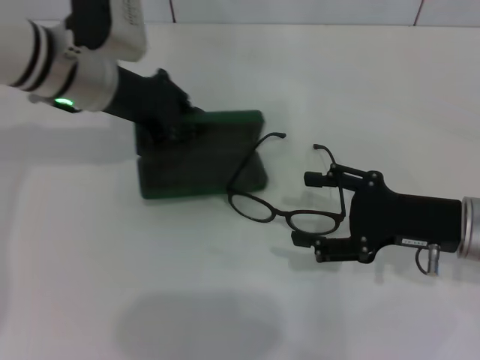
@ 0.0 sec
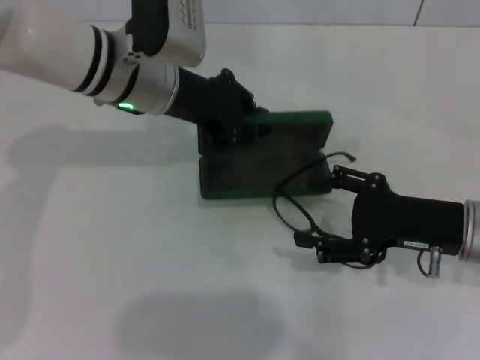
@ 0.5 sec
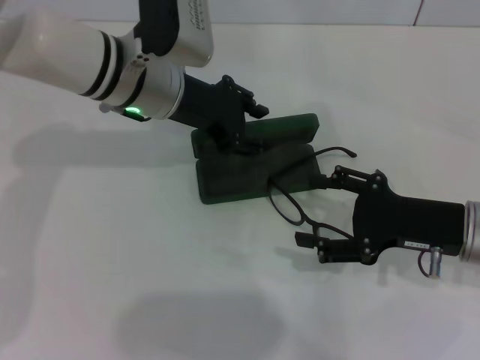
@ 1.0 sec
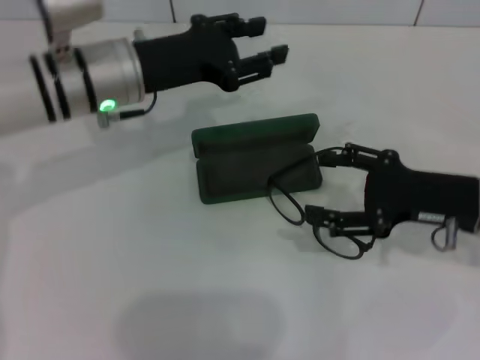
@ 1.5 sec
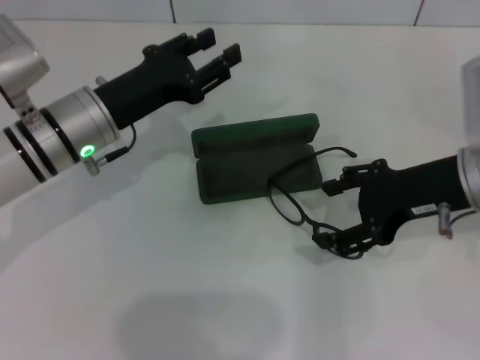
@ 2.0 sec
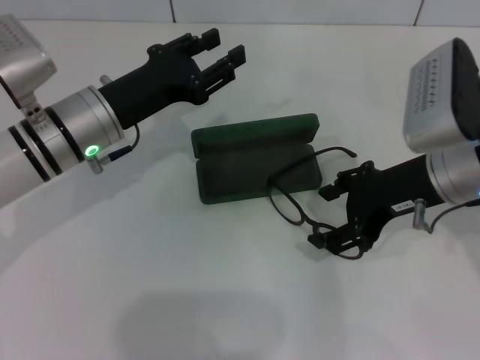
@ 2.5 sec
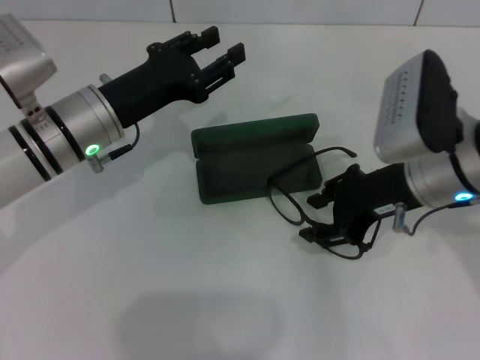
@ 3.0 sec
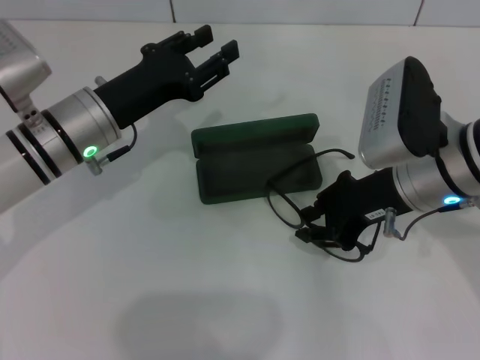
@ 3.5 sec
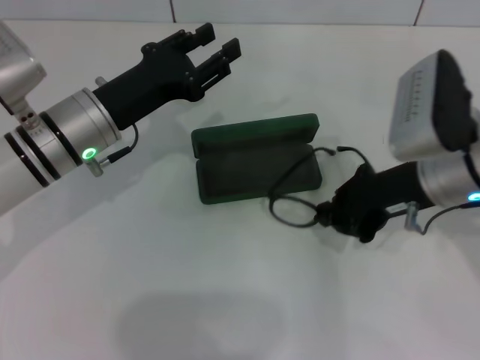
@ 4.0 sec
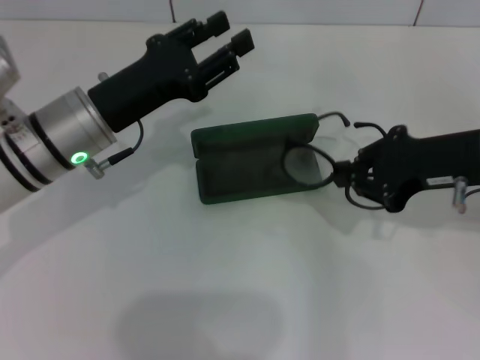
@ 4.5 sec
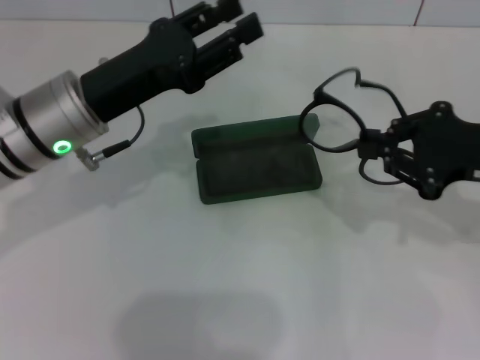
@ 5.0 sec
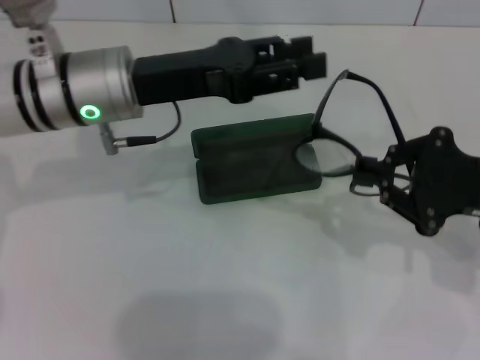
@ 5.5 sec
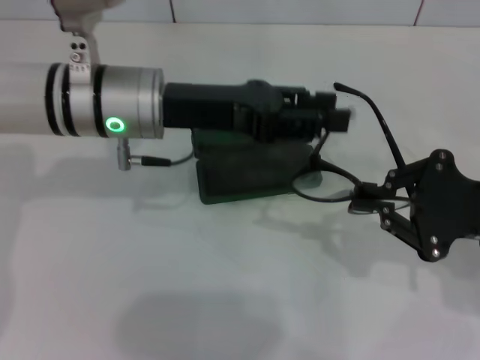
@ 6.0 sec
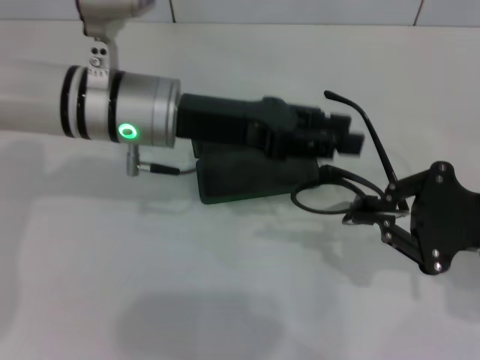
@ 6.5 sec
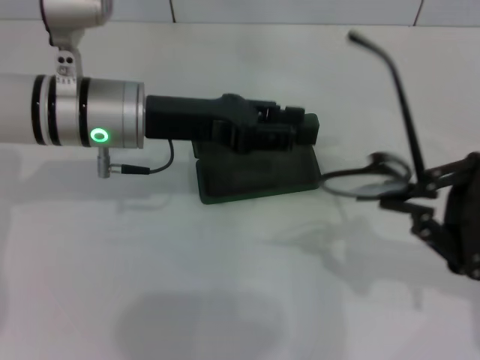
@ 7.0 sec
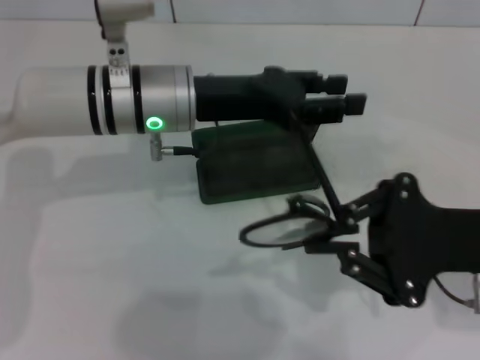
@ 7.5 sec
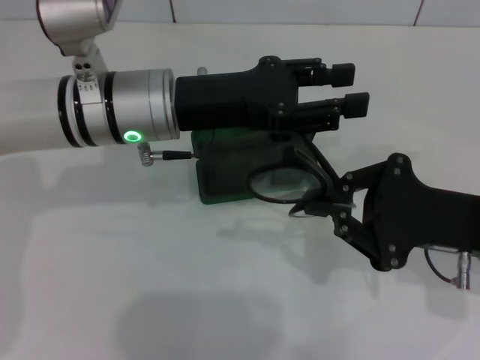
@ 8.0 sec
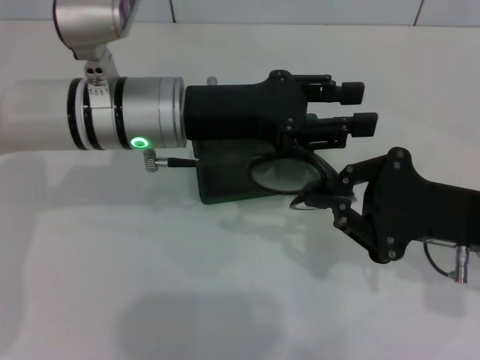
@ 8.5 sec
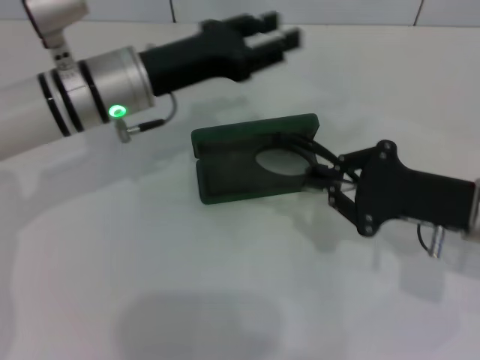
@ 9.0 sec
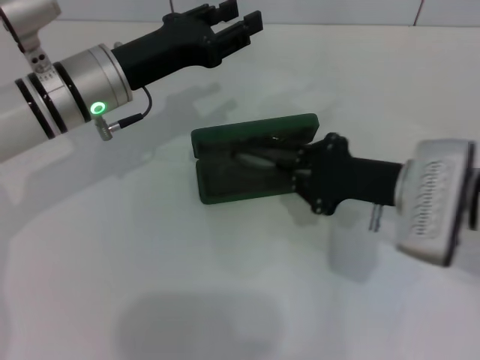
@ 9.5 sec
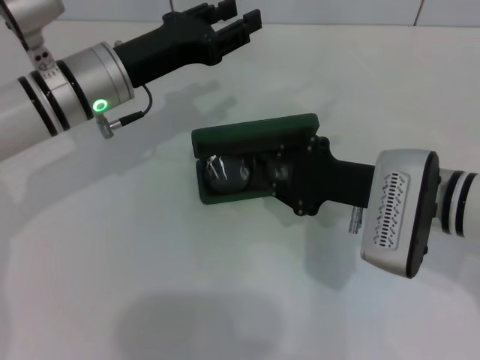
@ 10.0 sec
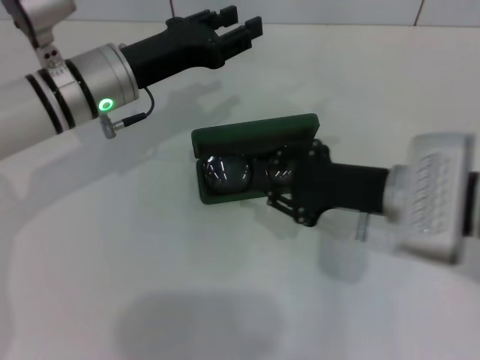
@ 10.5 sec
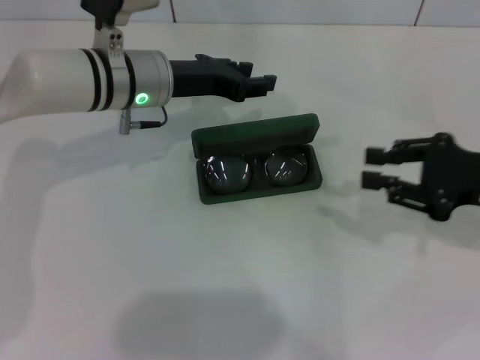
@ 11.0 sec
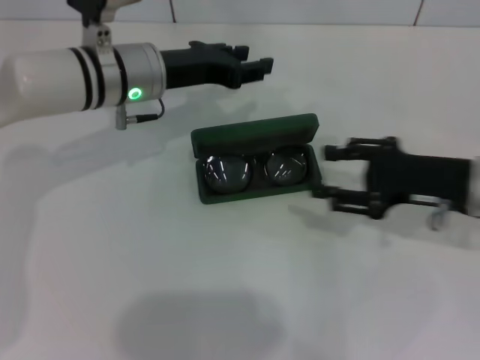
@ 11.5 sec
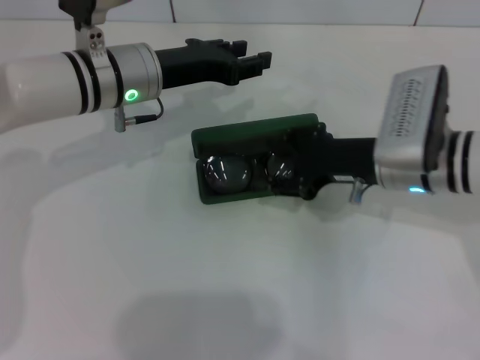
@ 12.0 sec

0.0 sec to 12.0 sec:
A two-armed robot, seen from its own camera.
Step, 1.0 sec to 3.5 sec: Grab the eyeglass frame with your right hand.
Step, 4.0 sec to 8.5 sec: Fold the frame with your left hand.
Step, 9.0 sec to 10.0 sec: Put the glasses into the case with your right hand.
0.0 sec to 2.0 sec: The left gripper heads downward and backward, covering some 10 cm, and opens, while the right gripper goes about 10 cm upward.
2.0 sec to 4.0 sec: The right gripper closes.
4.0 sec to 6.0 sec: The right gripper heads to the right and backward, covering roughly 10 cm. The left gripper goes about 10 cm upward and to the right.
8.0 sec to 10.0 sec: The grippers both shift to the left by roughly 5 cm.
10.0 sec to 12.0 sec: The right gripper moves roughly 15 cm to the right and comes back, and opens.

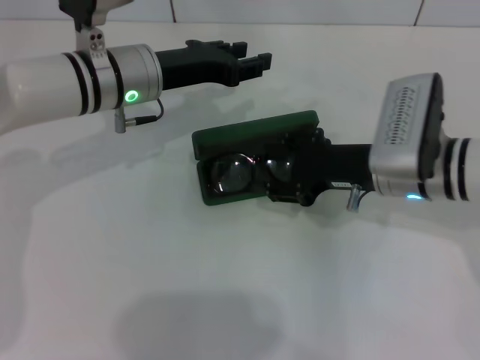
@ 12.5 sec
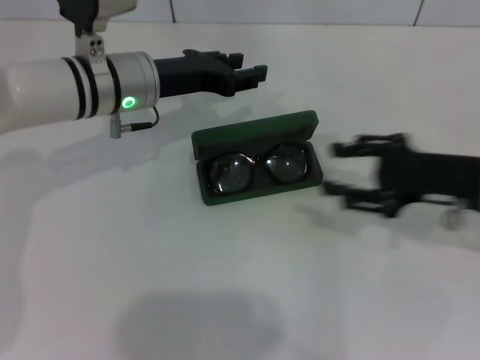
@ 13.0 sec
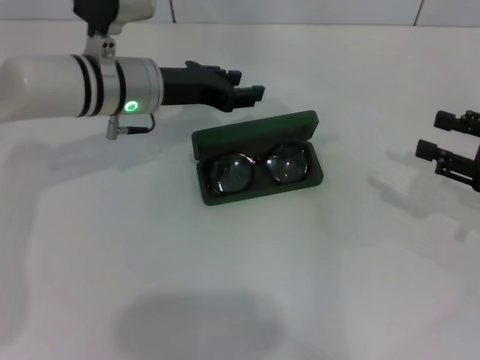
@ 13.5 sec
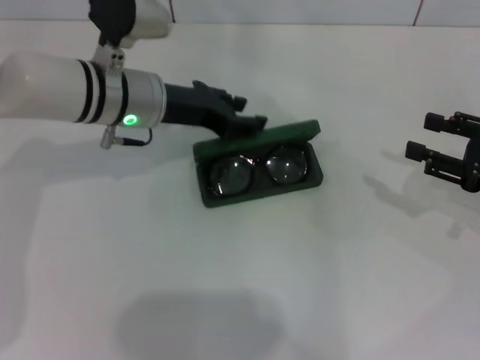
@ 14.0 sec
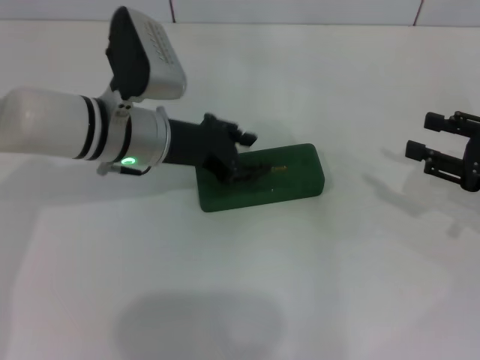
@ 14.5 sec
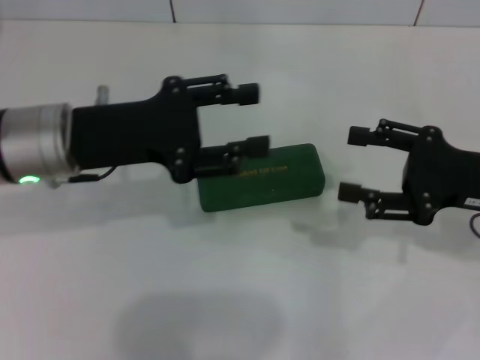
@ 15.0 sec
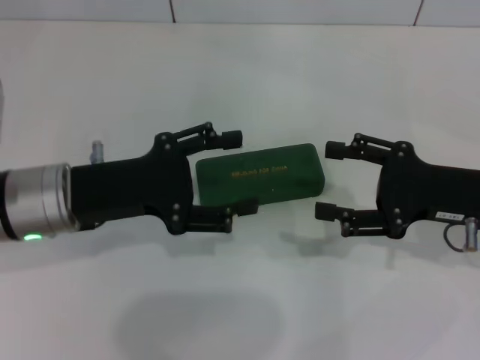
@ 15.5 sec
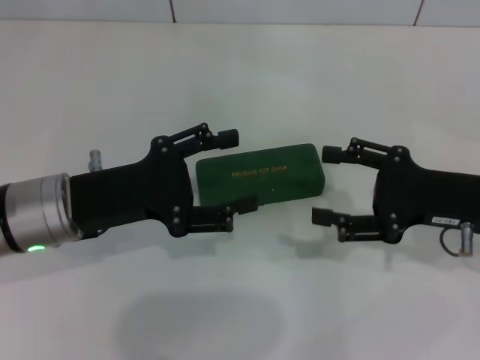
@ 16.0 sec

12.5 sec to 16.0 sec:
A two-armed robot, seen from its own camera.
12.5 sec to 14.5 sec: The right gripper is displaced to the right by approximately 15 cm.
14.5 sec to 16.0 sec: The left gripper moves backward and to the left, about 10 cm, and opens up; the right gripper travels to the left by about 10 cm.

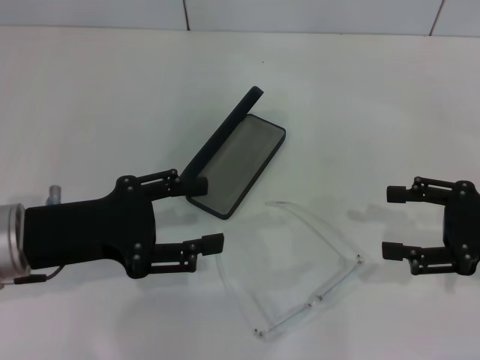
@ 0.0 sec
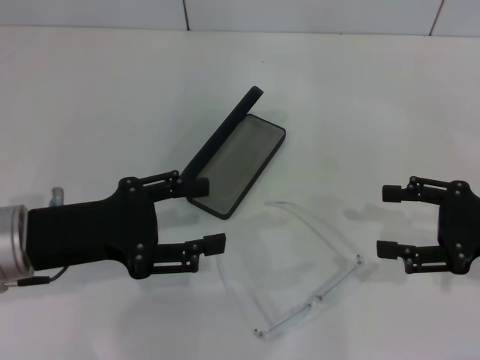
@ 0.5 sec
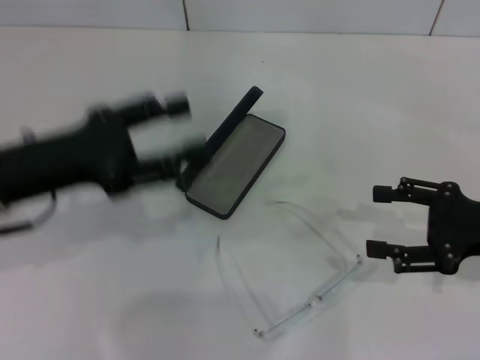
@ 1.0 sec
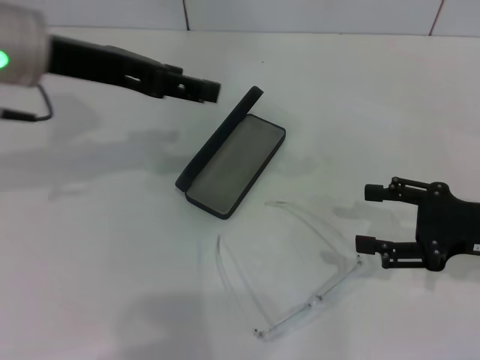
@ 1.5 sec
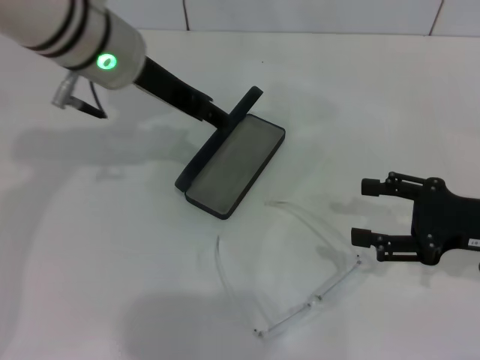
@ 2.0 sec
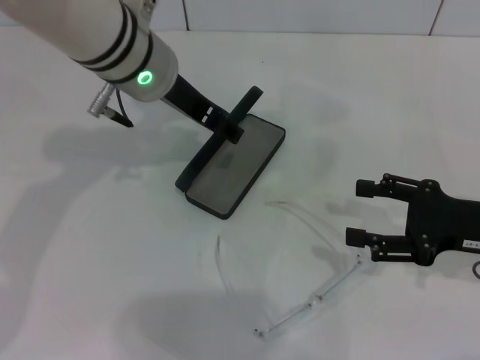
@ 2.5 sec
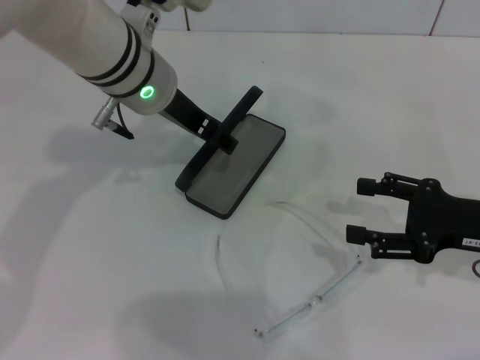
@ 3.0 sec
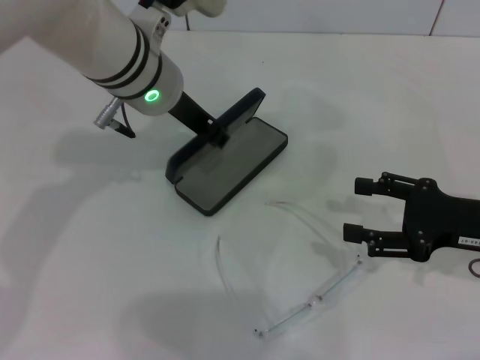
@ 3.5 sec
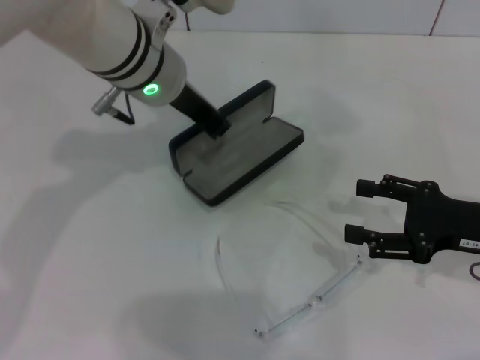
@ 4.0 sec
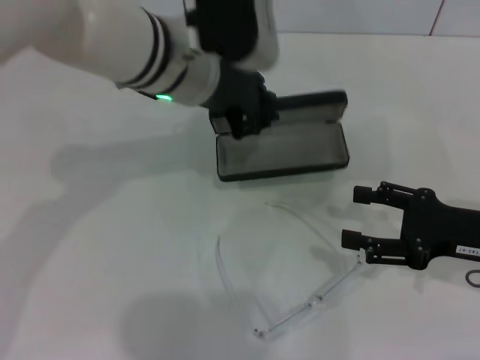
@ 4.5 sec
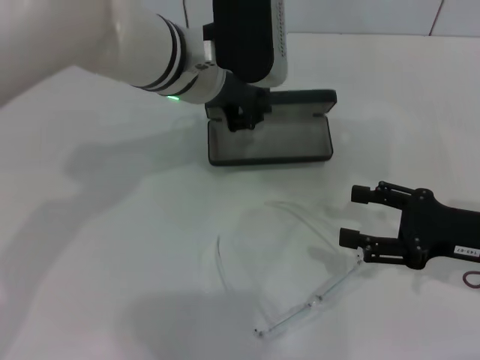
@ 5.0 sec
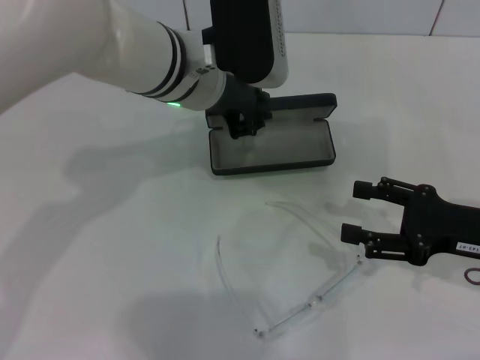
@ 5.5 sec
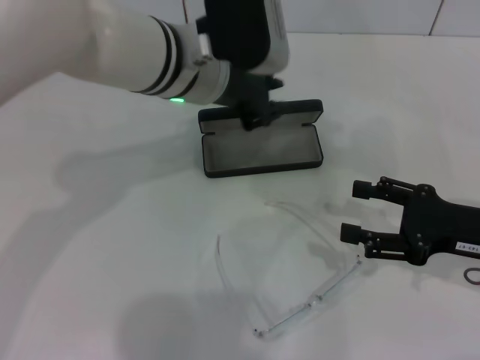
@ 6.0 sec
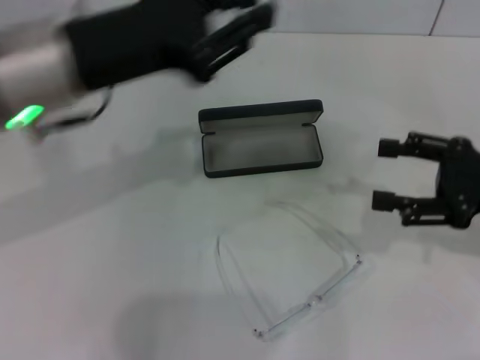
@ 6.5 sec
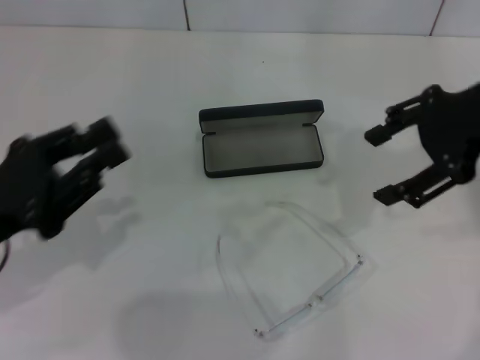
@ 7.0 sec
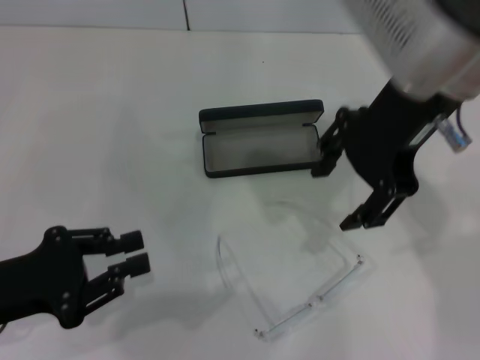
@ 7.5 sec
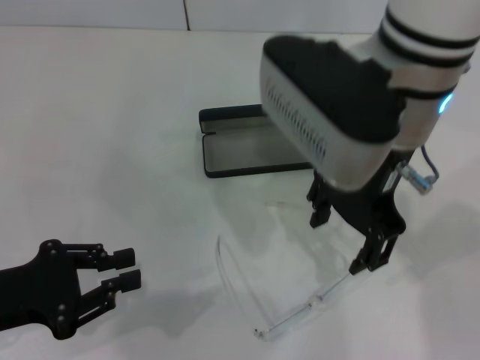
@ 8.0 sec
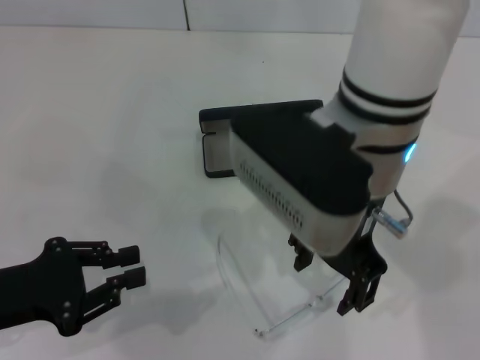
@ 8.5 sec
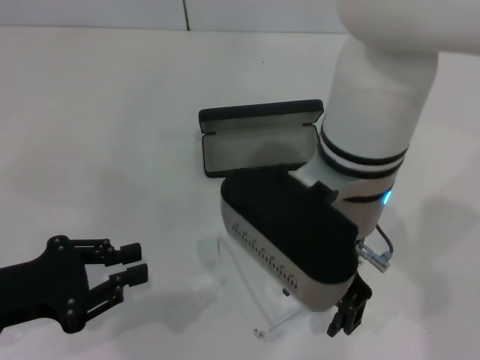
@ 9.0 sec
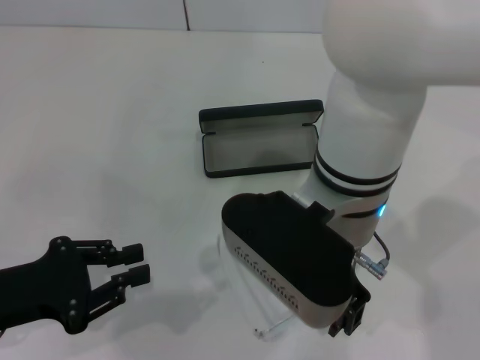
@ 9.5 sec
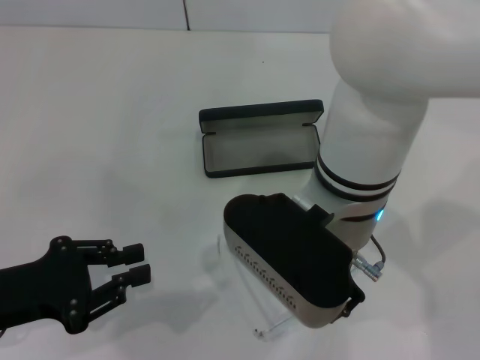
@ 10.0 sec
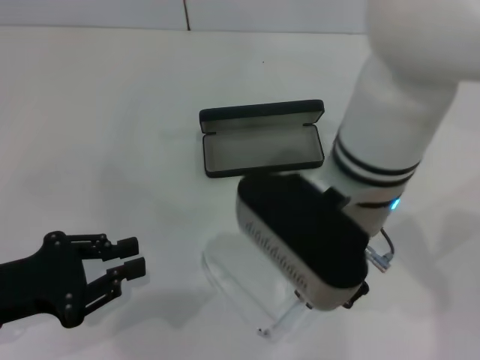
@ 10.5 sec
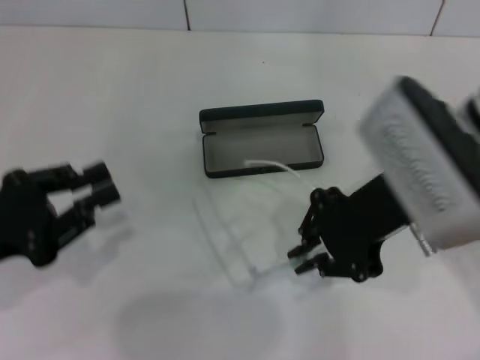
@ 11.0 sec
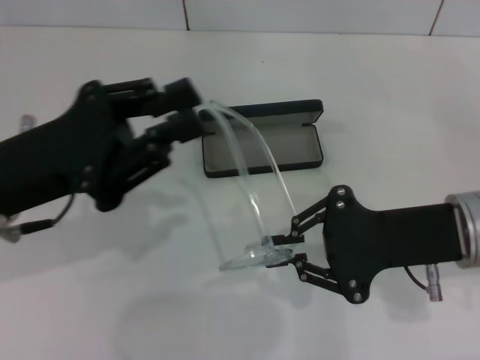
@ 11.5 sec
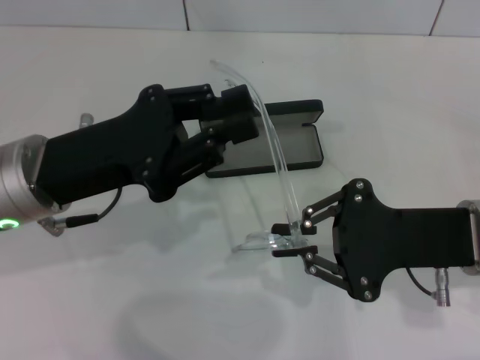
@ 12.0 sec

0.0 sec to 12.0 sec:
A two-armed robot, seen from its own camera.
Step, 0.0 sec to 3.0 sec: Grab the glasses case with your left hand.
Step, 3.5 sec to 5.5 sec: Place the glasses case in the center of the table with your left hand.
Step, 6.5 sec to 10.0 sec: Grab the eyeglass frame with your right hand.
0.0 sec to 2.0 sec: The left gripper travels forward, to the right and upward by approximately 20 cm.
2.0 sec to 4.0 sec: The left gripper closes.
6.0 sec to 8.0 sec: The right gripper shifts roughly 25 cm to the left and upward; the left gripper heads to the left, backward and downward, covering approximately 30 cm.
8.0 sec to 10.0 sec: The right gripper moves downward, approximately 10 cm.
10.0 sec to 12.0 sec: The right gripper travels to the right by roughly 15 cm, and closes its fingers. Meanwhile the left gripper heads to the right, forward and upward, covering roughly 15 cm.
